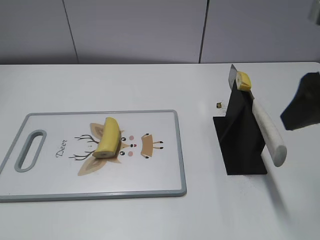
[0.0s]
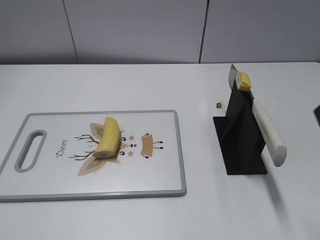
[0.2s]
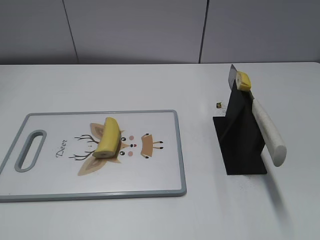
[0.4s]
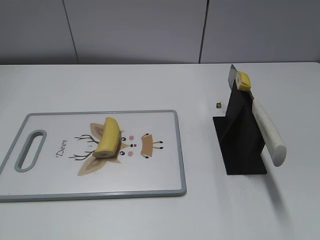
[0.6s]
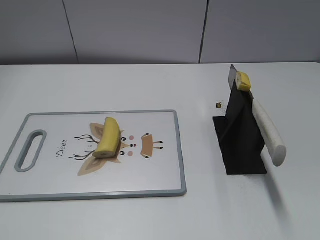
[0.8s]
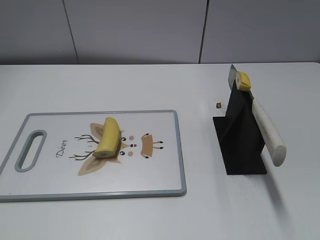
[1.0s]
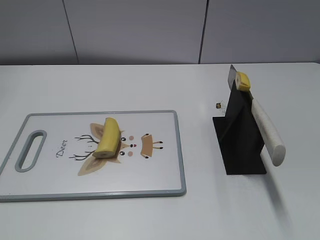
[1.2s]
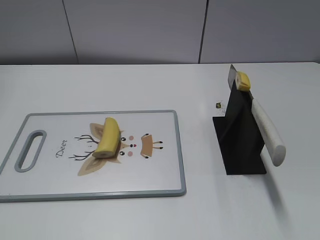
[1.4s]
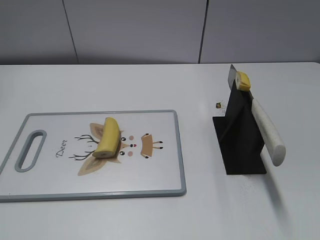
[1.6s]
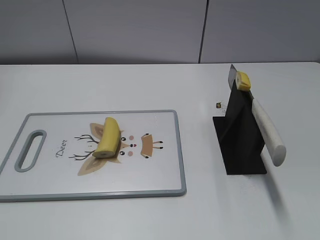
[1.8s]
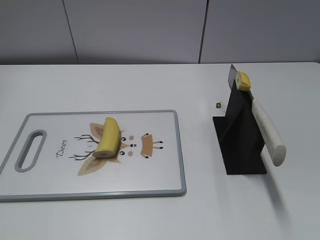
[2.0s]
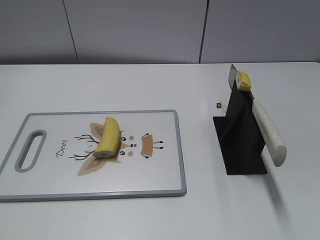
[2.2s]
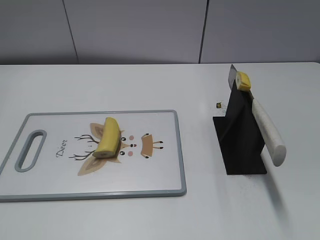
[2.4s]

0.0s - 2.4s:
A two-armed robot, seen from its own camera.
Task of the whole recording: cut banana.
Step, 0.0s - 2.4s: Place the knife on the storage rack with your right hand.
0.0s - 1.2s: The right gripper heads backward, covering roughly 20 cm.
